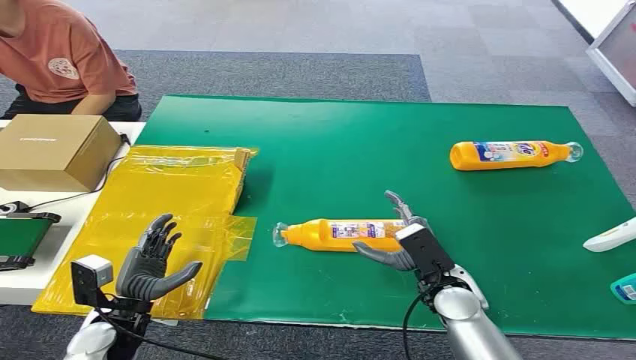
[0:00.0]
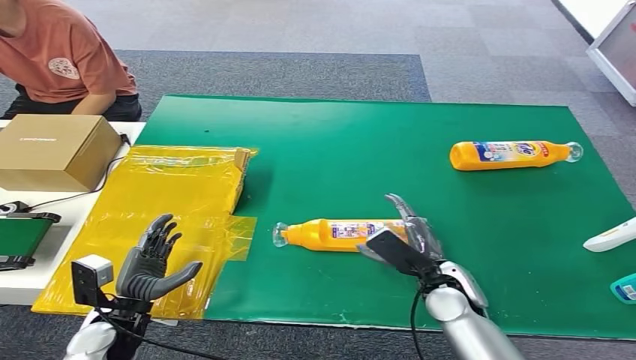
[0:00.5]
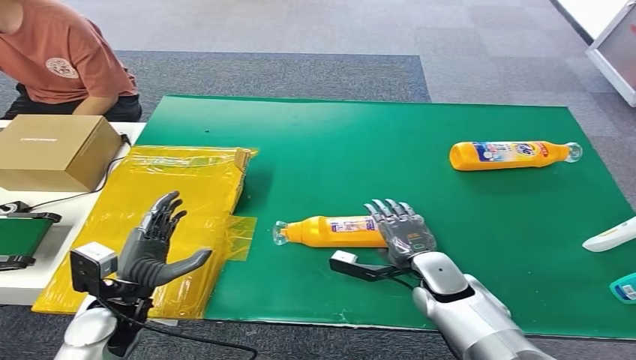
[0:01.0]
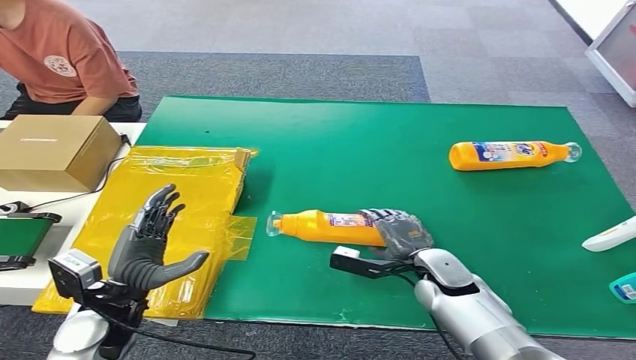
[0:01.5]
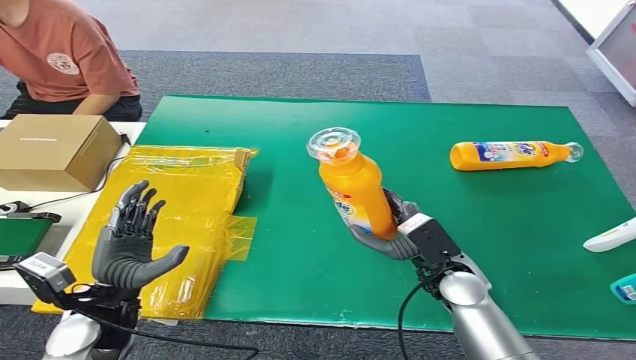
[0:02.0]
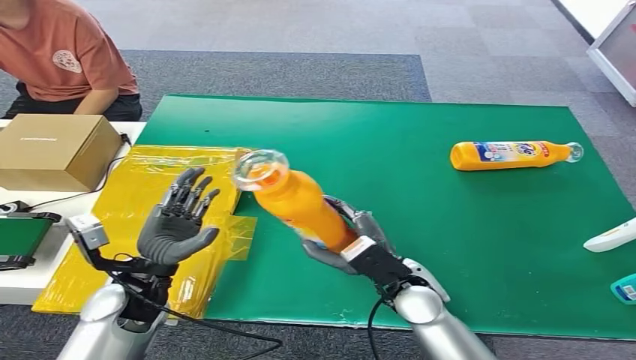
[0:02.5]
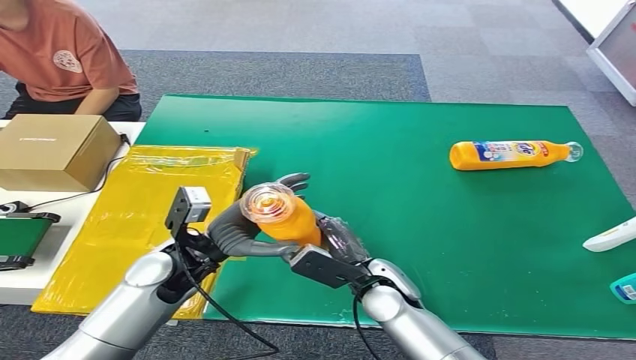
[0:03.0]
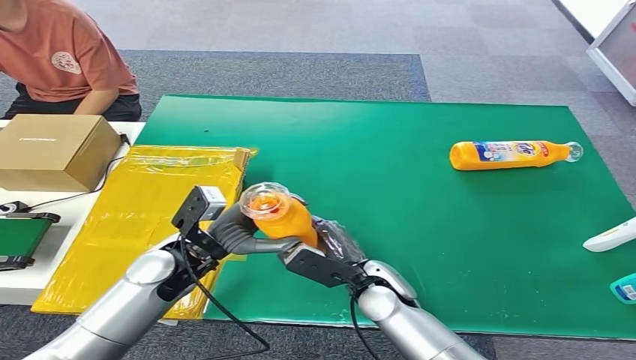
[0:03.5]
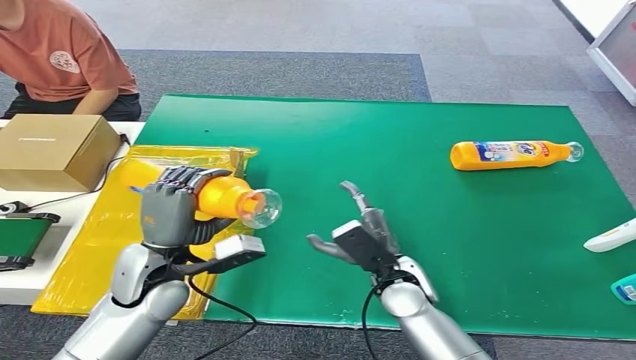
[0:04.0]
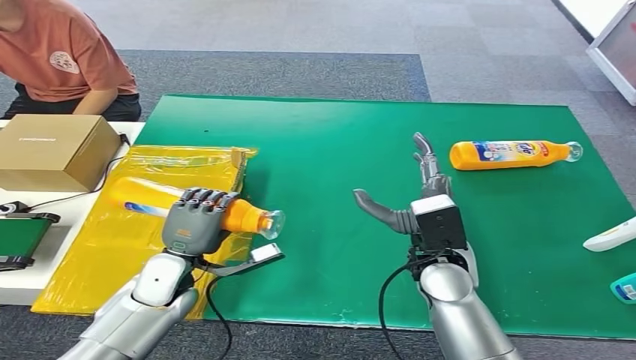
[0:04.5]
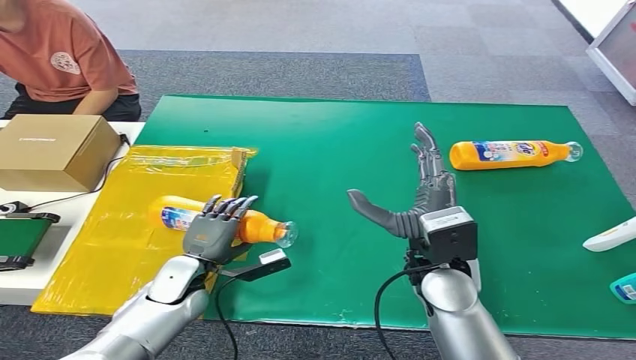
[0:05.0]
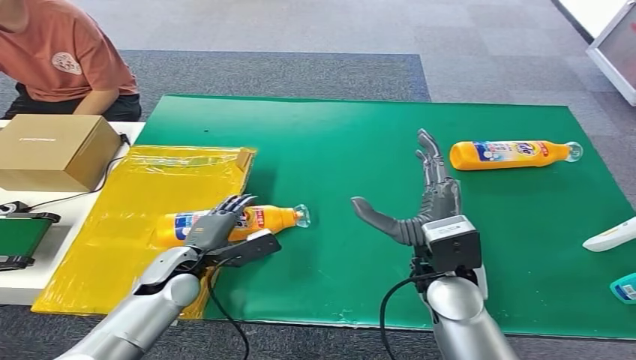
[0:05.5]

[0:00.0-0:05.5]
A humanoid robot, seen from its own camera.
Step, 0:00.0 to 0:02.0: Pick up the bottle from the table.
Step, 0:02.5 to 0:05.5: Turn the bottle to the front side.
0:03.5 to 0:05.5: The left hand shifts approximately 10 cm downward, while the right hand goes about 15 cm upward and to the right.
